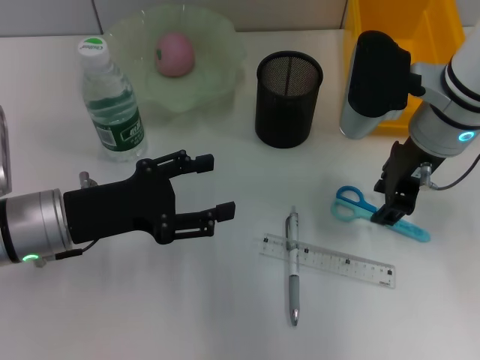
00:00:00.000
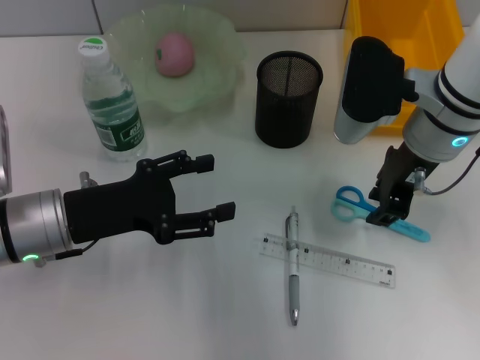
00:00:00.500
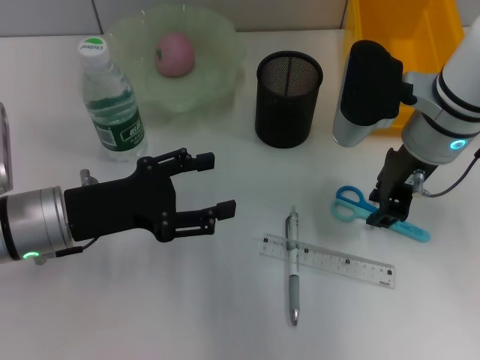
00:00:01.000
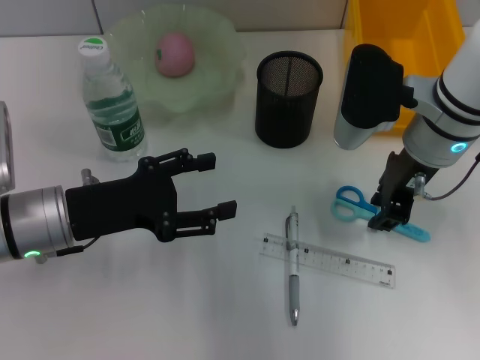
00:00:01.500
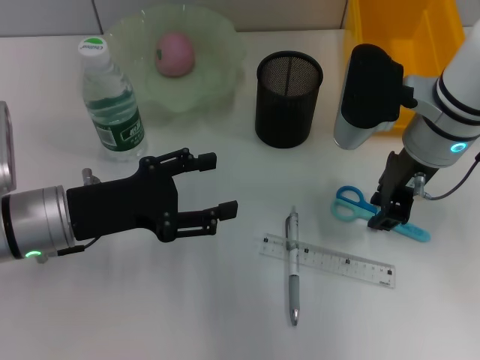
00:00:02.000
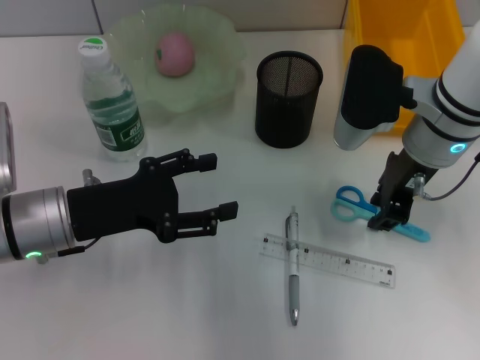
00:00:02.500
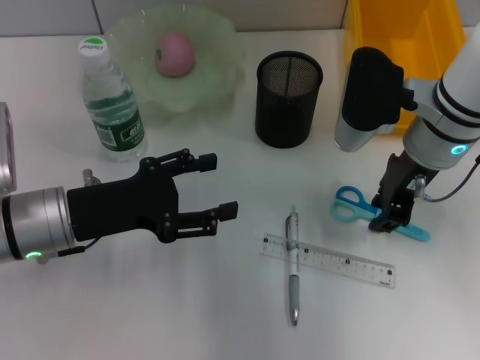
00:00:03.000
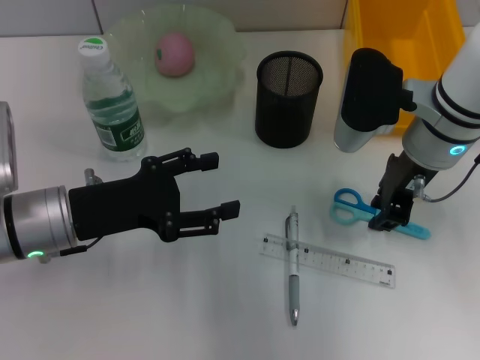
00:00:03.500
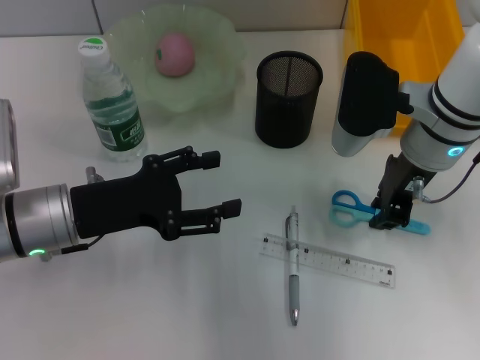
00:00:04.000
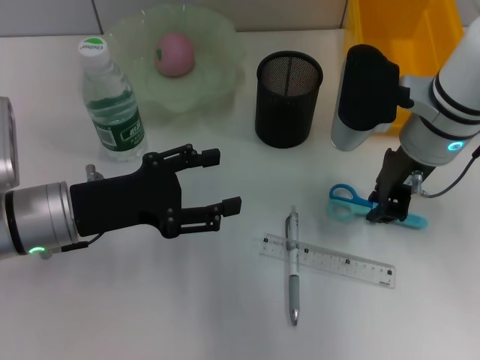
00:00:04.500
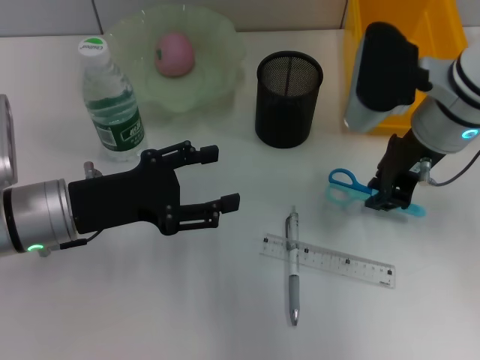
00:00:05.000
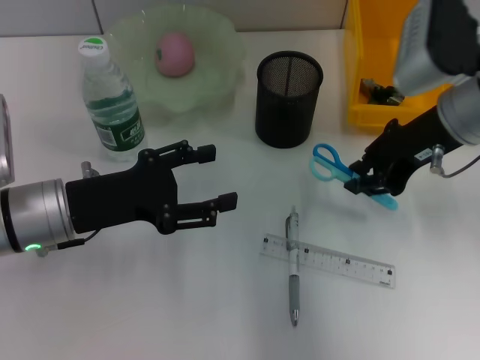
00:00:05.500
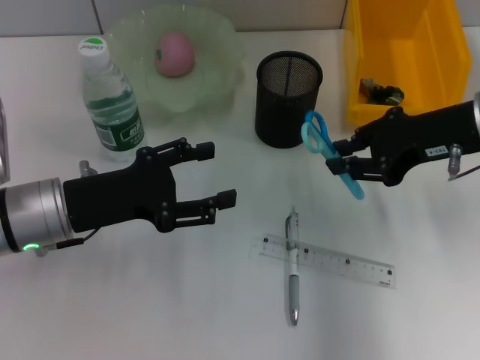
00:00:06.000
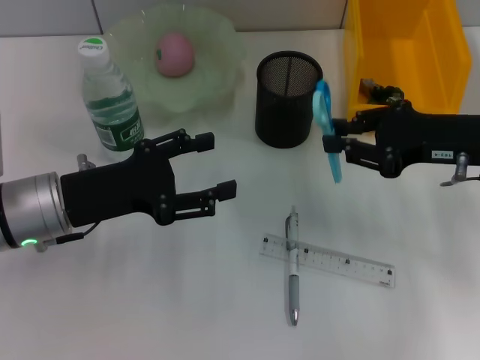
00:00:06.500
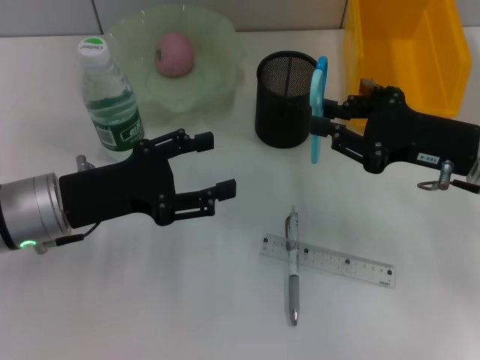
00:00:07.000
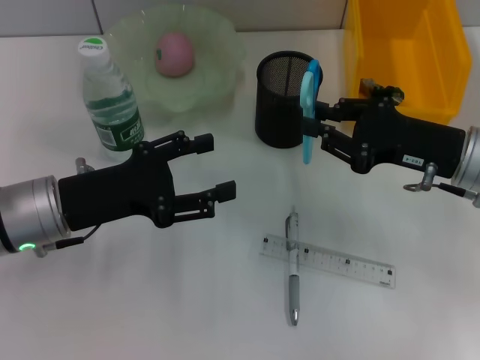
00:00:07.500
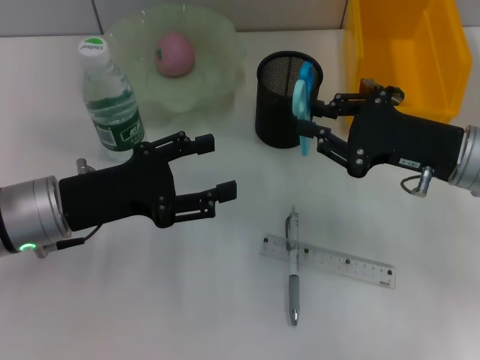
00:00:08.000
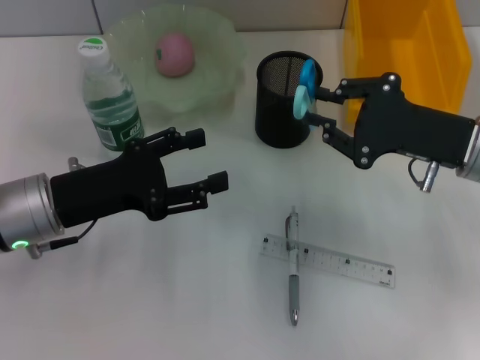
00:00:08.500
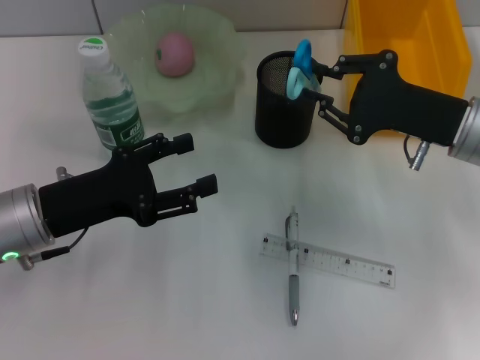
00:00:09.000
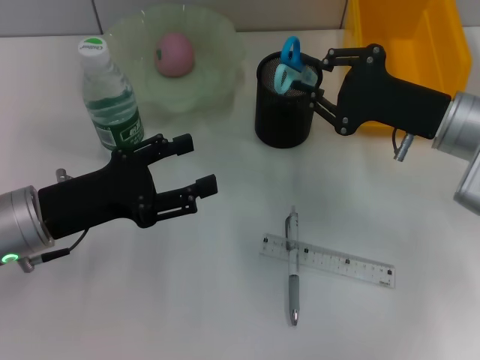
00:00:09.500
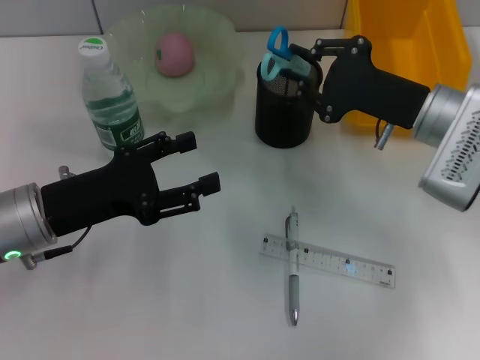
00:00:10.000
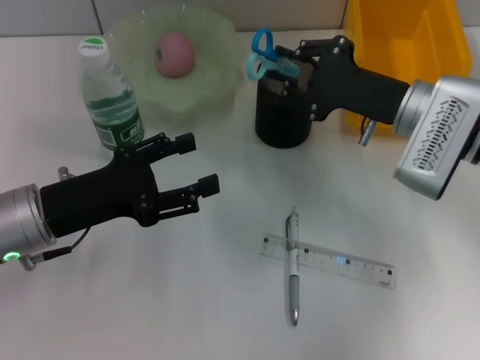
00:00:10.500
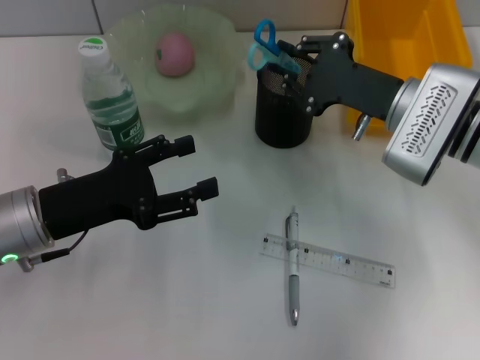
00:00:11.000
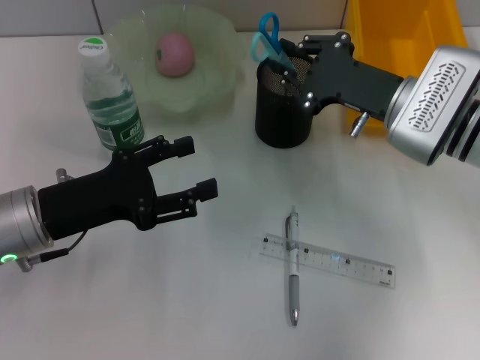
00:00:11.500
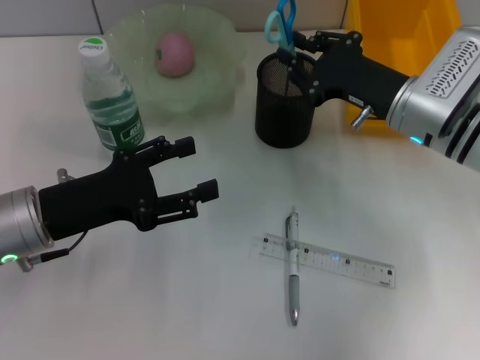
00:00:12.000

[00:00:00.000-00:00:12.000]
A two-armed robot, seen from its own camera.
Step, 00:00:00.000 to 00:00:04.000: Grab the blue scissors with the right hand.
00:00:00.000 to 00:00:02.000: Both grippers stay put.
00:00:02.000 to 00:00:04.000: The two grippers keep their place.
00:00:04.000 to 00:00:06.000: The right gripper moves to the right, some 10 cm.
00:00:06.000 to 00:00:08.000: The right gripper heads downward, covering approximately 5 cm.

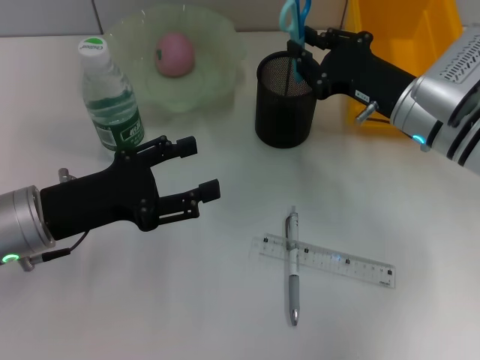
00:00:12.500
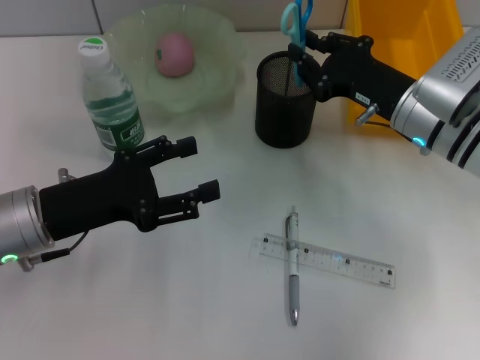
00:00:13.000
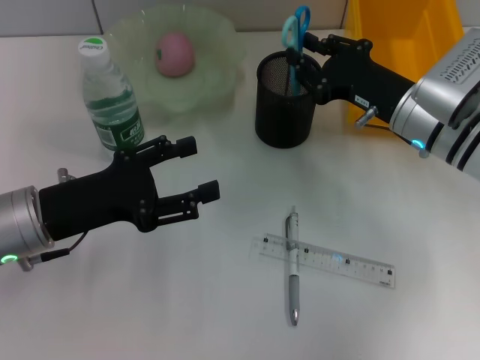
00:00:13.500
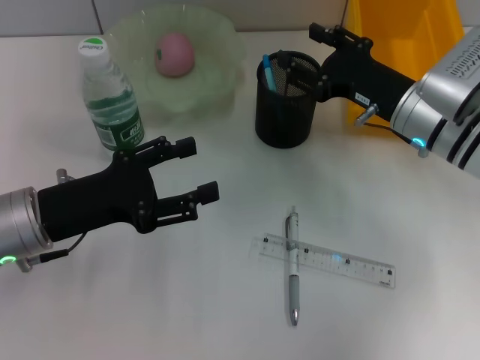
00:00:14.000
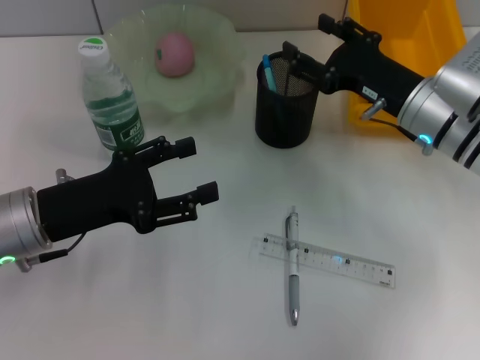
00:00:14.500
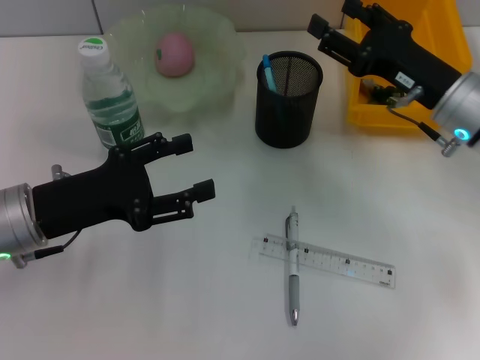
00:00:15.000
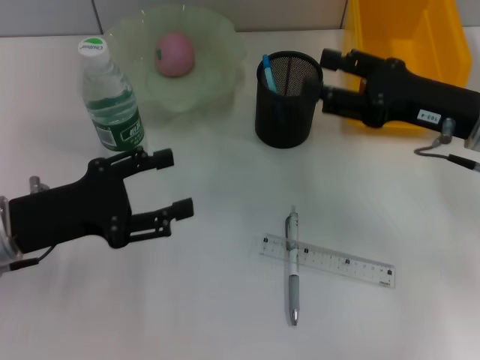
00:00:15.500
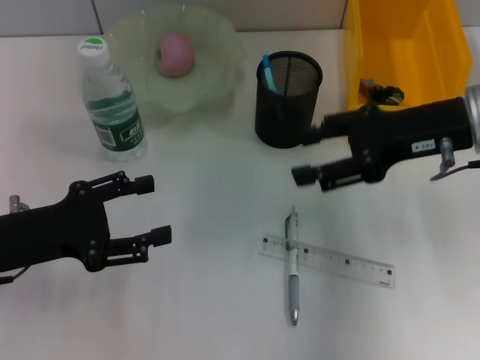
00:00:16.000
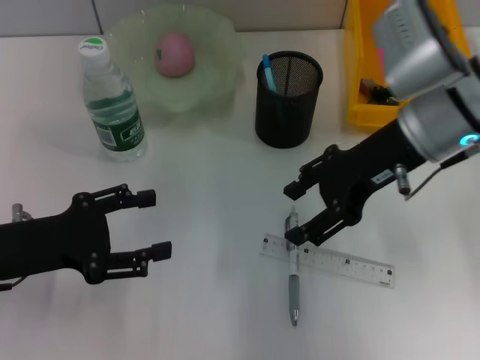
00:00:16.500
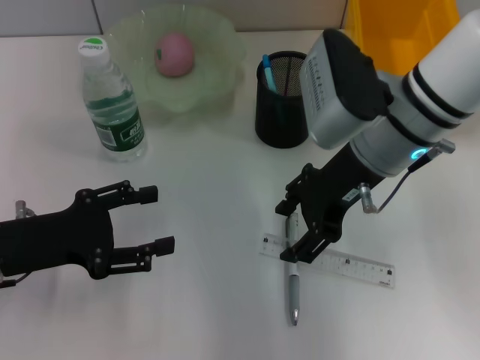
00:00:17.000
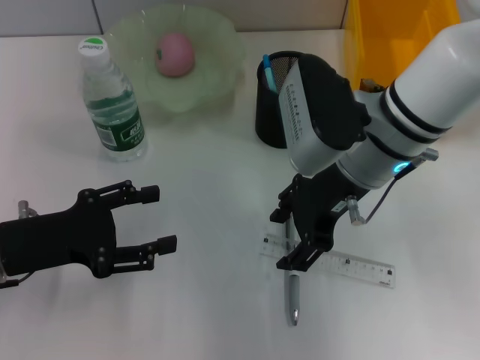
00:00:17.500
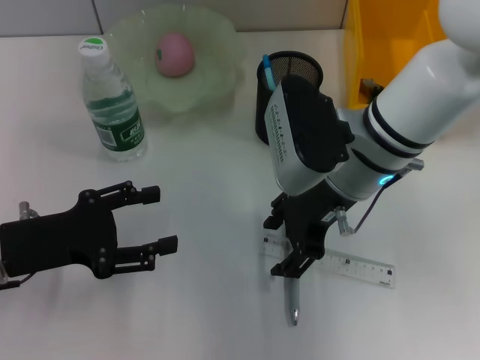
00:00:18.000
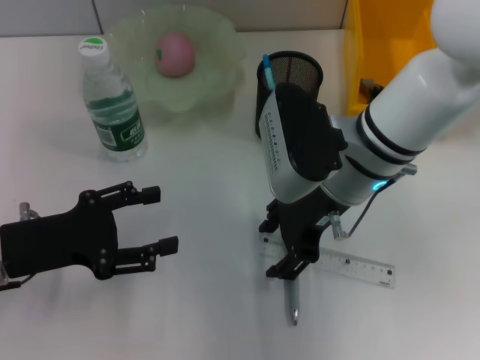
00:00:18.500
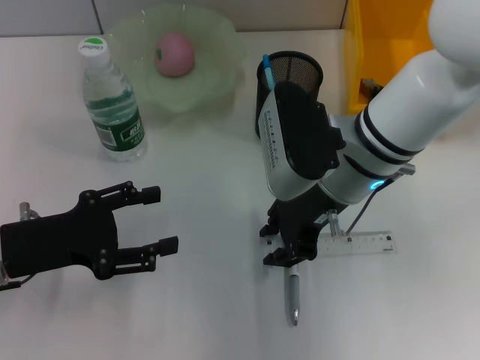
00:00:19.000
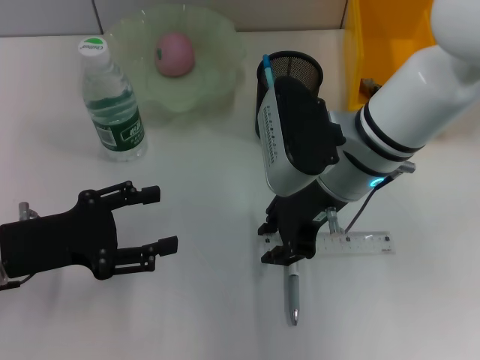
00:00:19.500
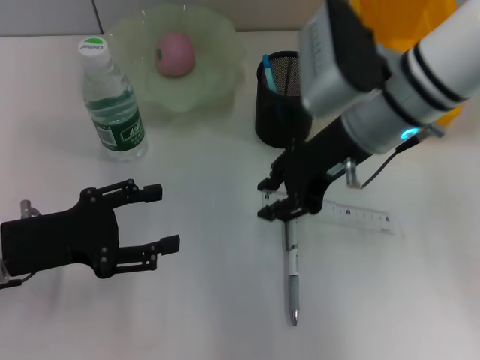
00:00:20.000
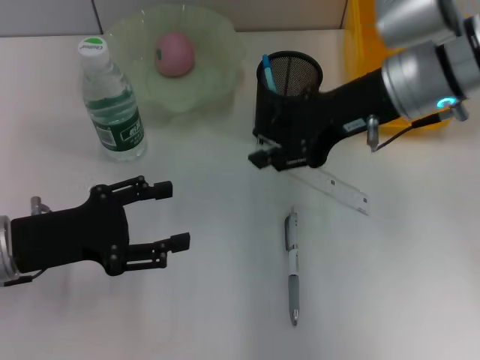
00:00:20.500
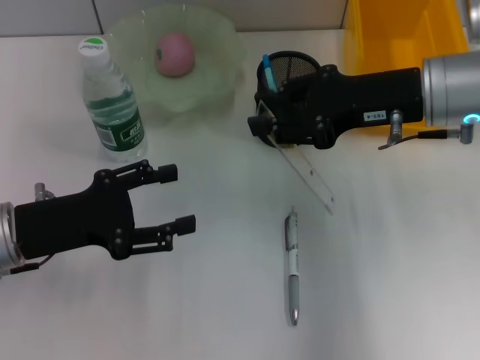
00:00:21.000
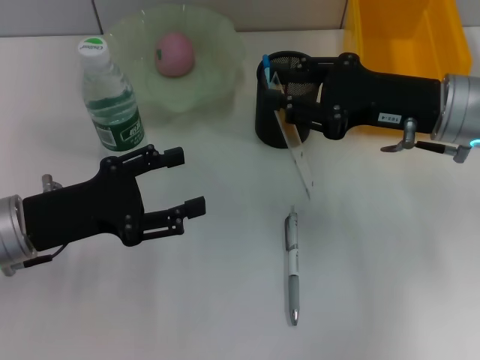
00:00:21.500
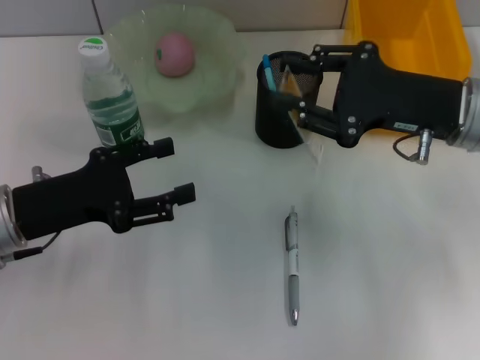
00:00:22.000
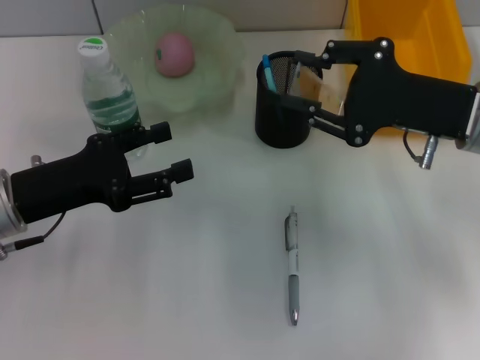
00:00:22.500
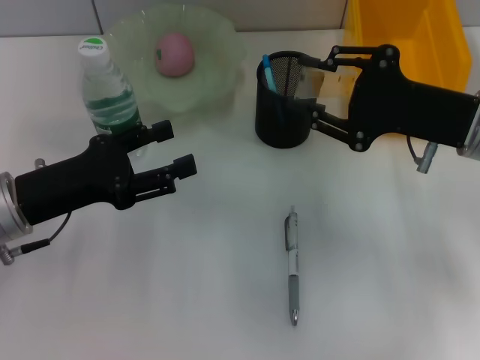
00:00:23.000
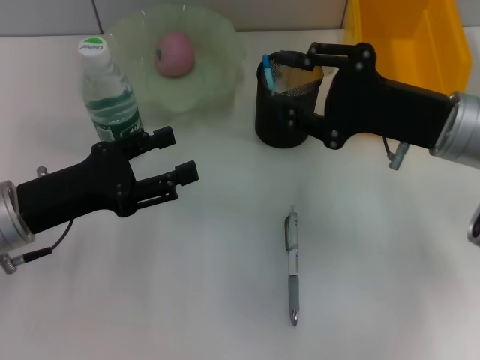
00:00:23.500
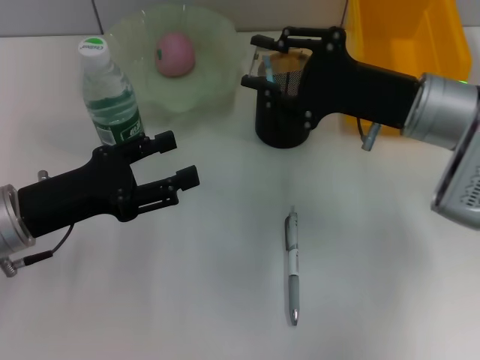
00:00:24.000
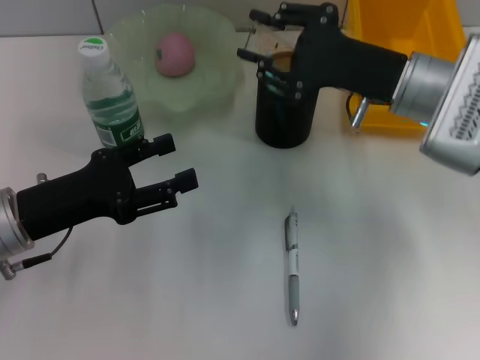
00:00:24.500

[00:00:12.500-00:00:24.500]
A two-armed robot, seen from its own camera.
Step, 00:00:14.000 to 00:00:19.000: Grab the ruler with the right hand.
00:00:12.500 to 00:00:14.500: The right gripper opens.
00:00:14.500 to 00:00:16.500: The right gripper is displaced upward by some 10 cm.
00:00:16.500 to 00:00:18.500: The right gripper is displaced to the left by roughly 5 cm.
00:00:18.500 to 00:00:20.500: The right gripper heads to the right and upward, covering about 10 cm, and closes its fingers.
00:00:20.500 to 00:00:22.500: The right gripper travels to the right by about 5 cm.
00:00:22.500 to 00:00:24.500: The right gripper changes place by roughly 5 cm.

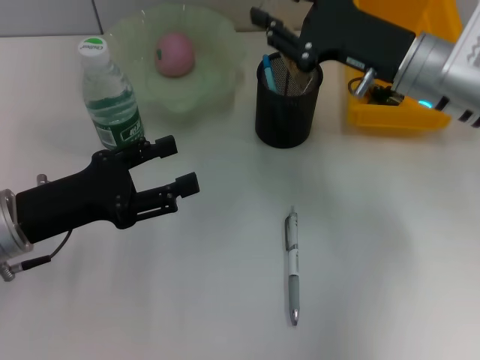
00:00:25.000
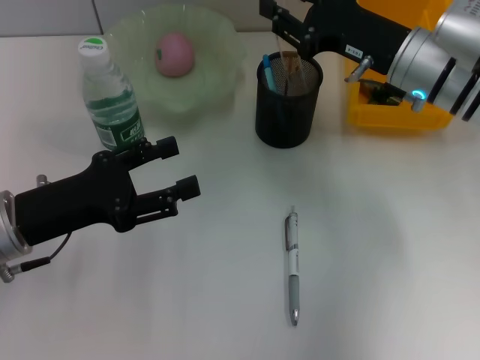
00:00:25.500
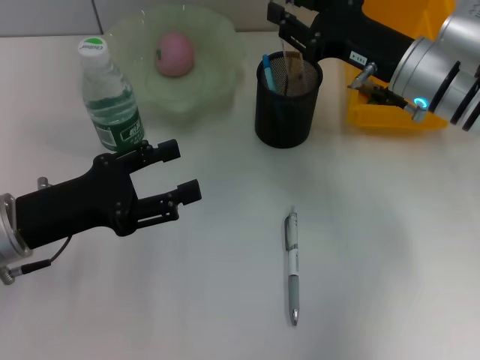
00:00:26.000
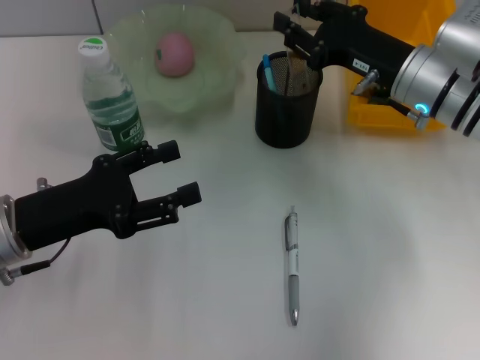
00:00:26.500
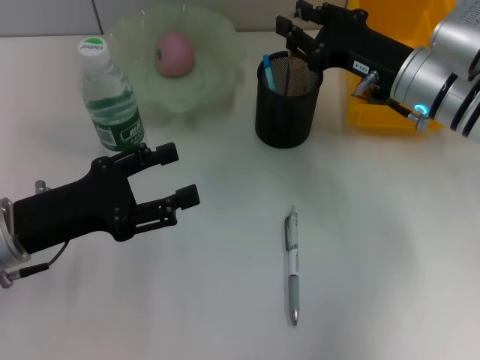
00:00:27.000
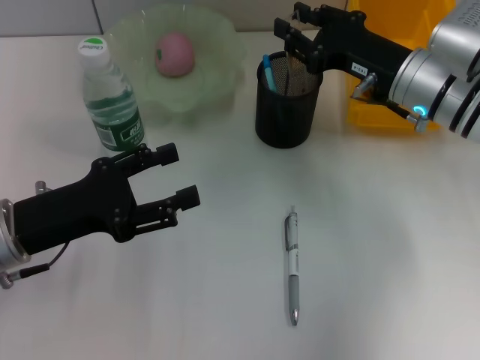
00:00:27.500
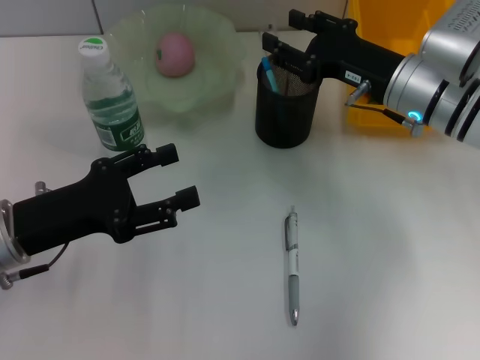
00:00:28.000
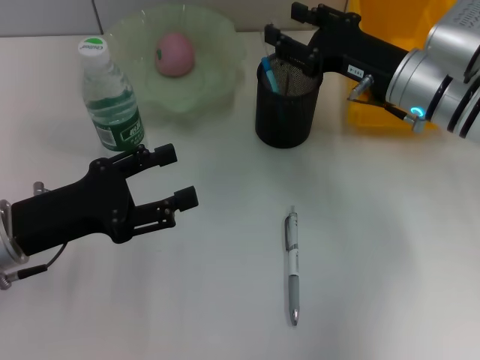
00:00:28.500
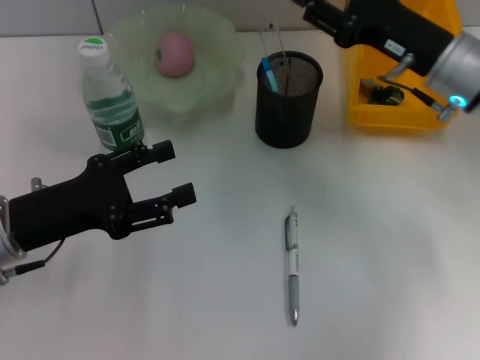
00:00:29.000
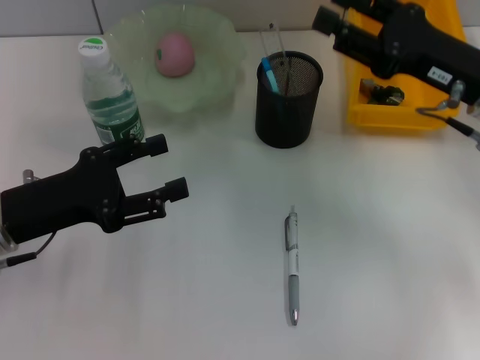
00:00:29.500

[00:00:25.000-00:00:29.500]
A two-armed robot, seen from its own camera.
Step, 00:00:25.000 to 00:00:28.500: Place the ruler into the pen holder with the right hand.
00:00:27.000 to 00:00:29.500: The right gripper is displaced backward by some 5 cm.
